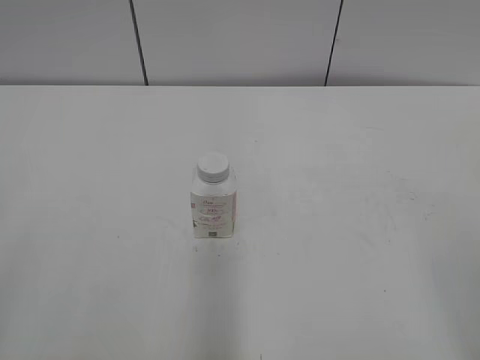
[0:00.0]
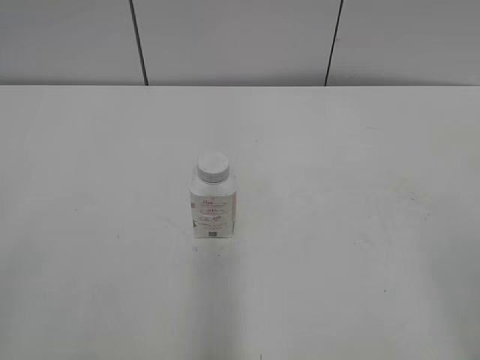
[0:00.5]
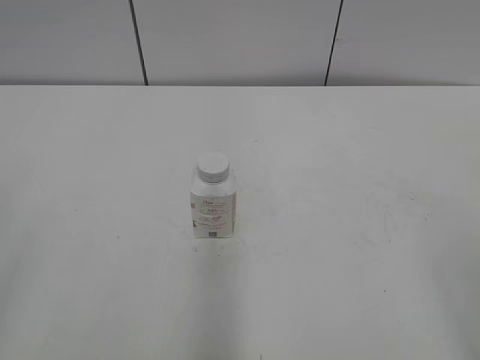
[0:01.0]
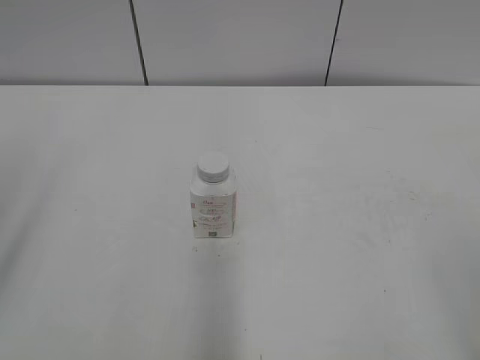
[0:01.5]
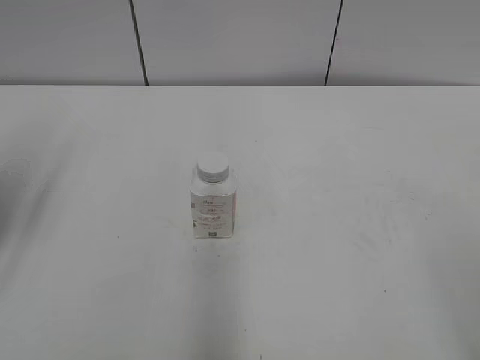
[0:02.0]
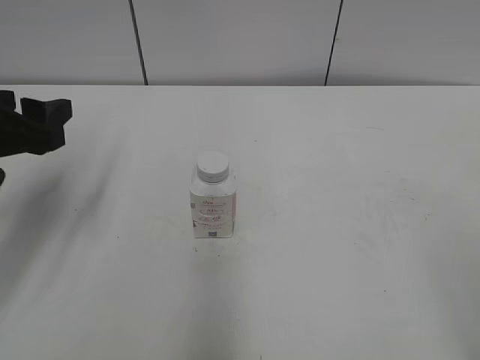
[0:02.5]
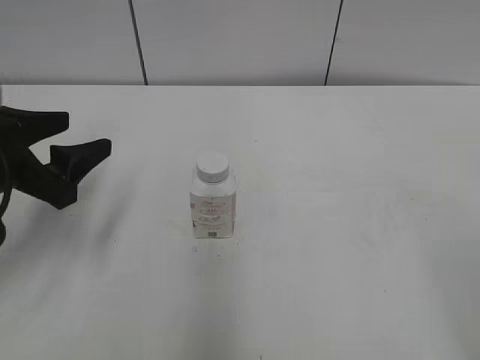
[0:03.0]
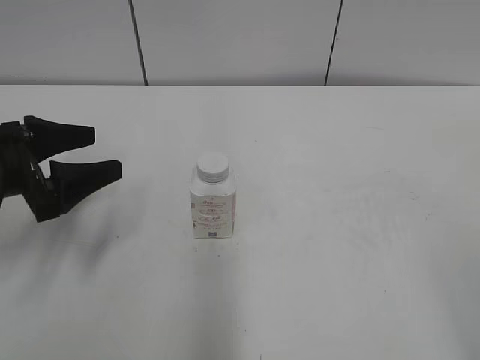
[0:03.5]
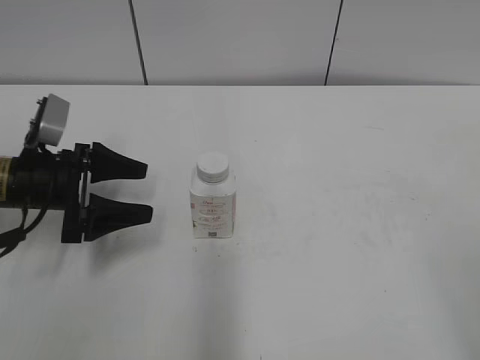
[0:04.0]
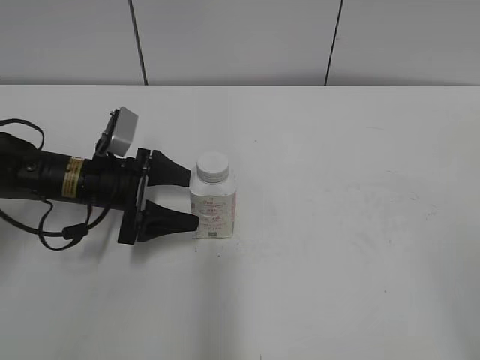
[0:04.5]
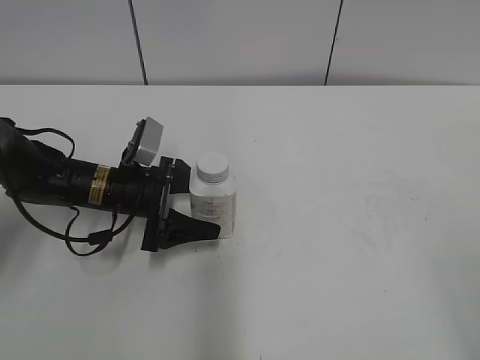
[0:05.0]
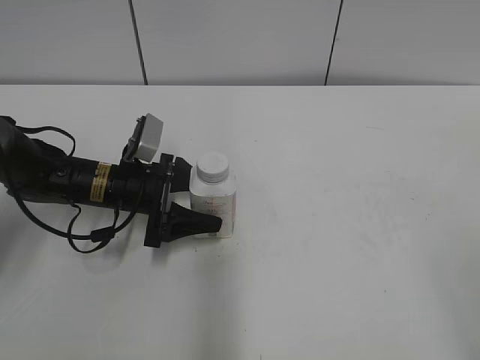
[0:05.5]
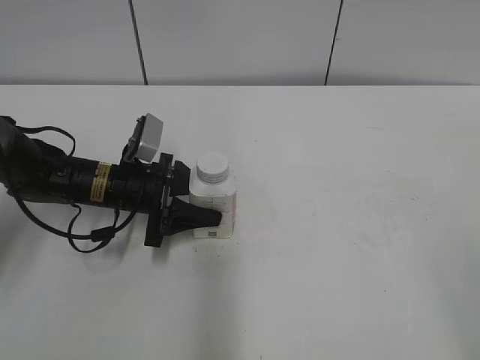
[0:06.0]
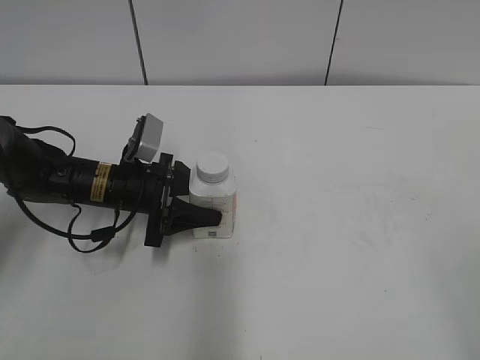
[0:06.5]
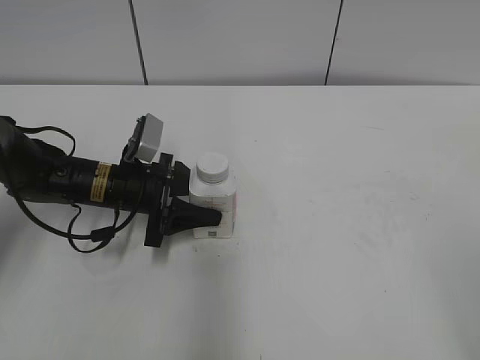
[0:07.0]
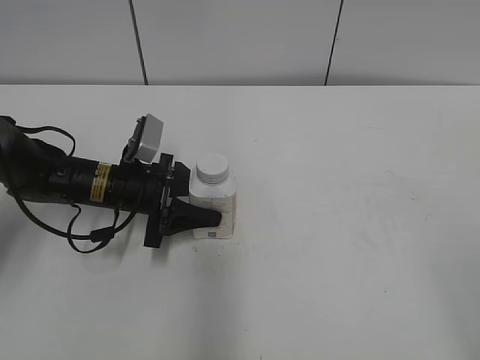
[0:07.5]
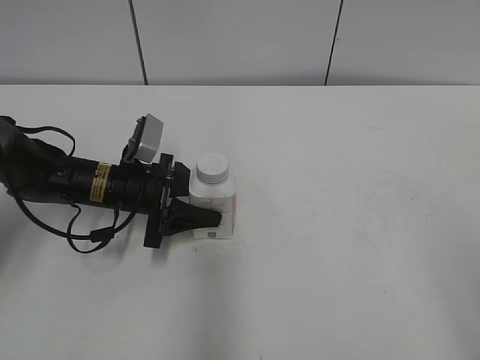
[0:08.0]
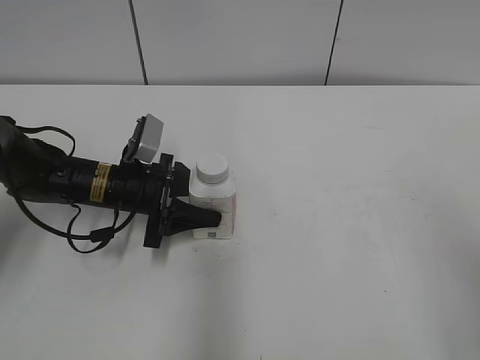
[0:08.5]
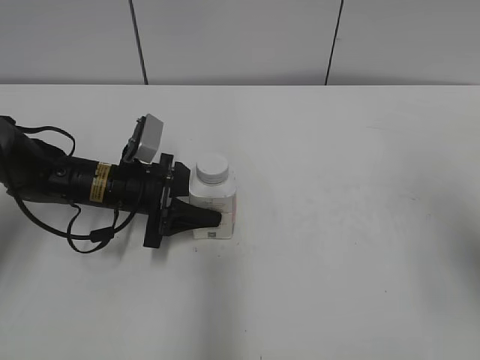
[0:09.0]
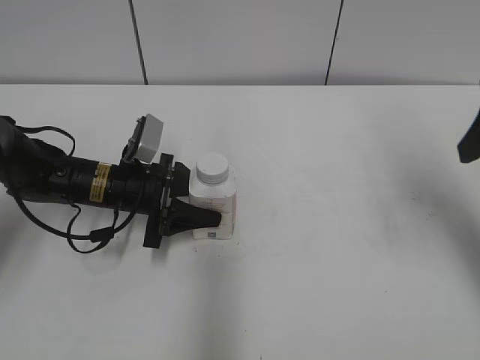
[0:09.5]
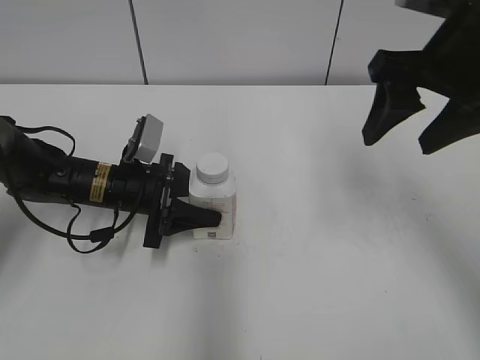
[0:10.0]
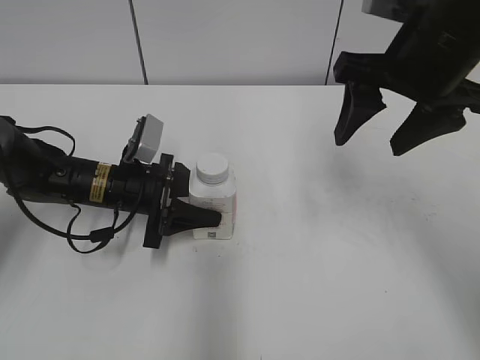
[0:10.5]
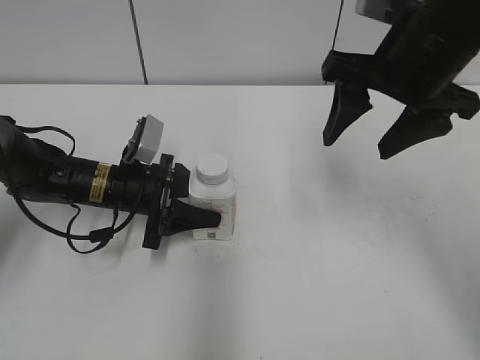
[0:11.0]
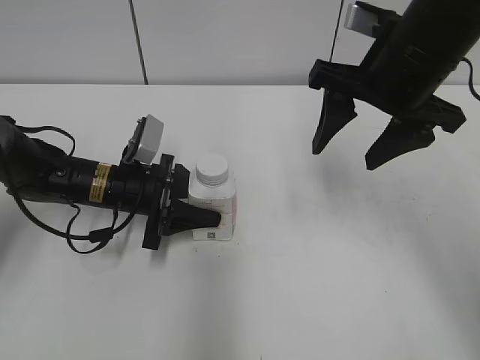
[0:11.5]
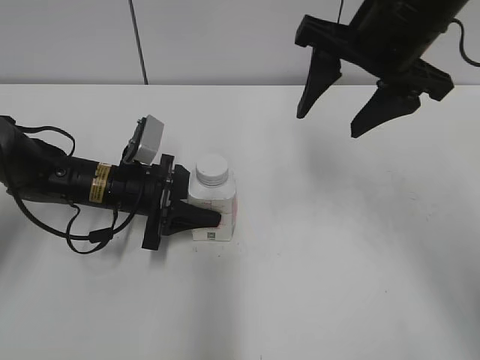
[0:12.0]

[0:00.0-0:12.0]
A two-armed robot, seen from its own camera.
Step, 0:00.0 to 0:06.0: Grasp the bottle and move it to the center of the table with the left gripper.
0:02.0 to 0:04.0: The left gripper moves downward and forward, about 20 cm, and opens up.
0:04.0 to 0:06.0: The left gripper travels to the right and downward by approximately 10 cm, and closes.
0:08.0 to 0:10.0: The right gripper moves forward, about 30 cm.
0:10.0 to 0:12.0: The right gripper goes roughly 5 cm to the left.

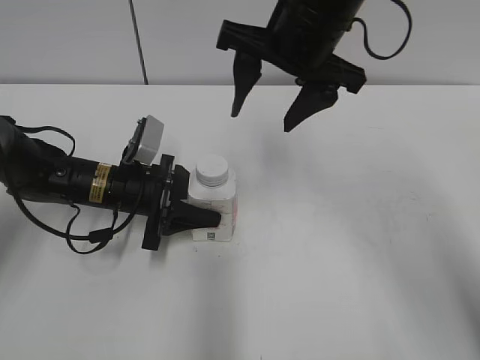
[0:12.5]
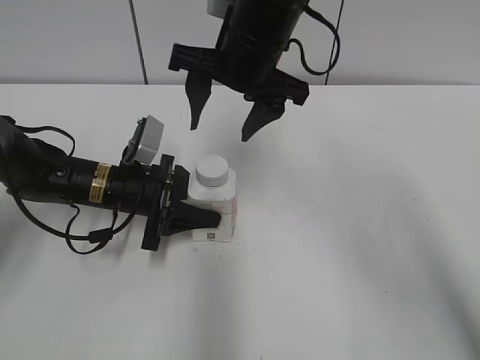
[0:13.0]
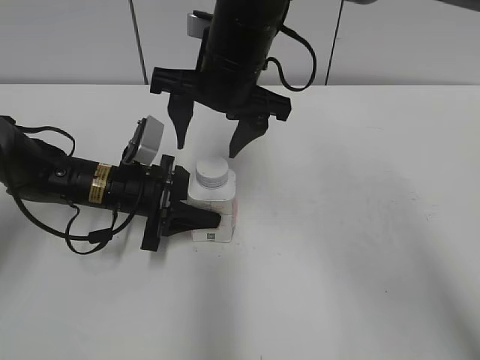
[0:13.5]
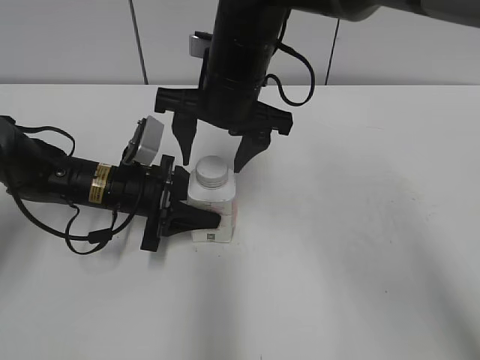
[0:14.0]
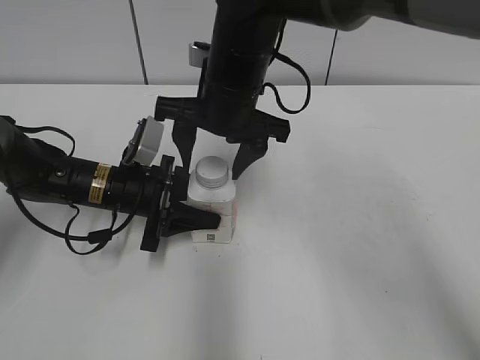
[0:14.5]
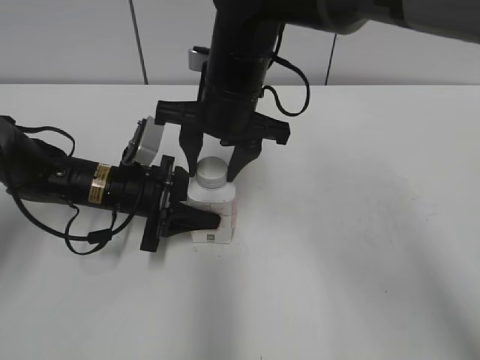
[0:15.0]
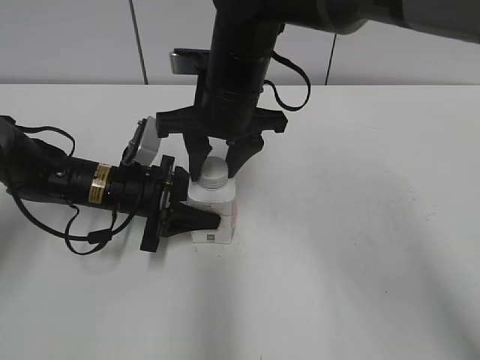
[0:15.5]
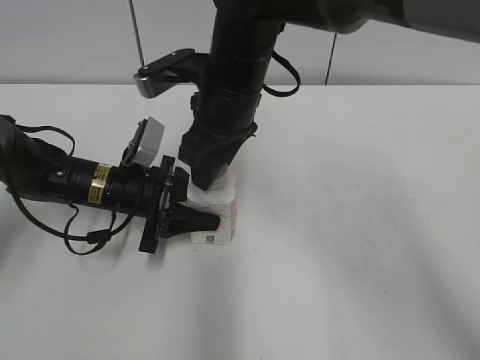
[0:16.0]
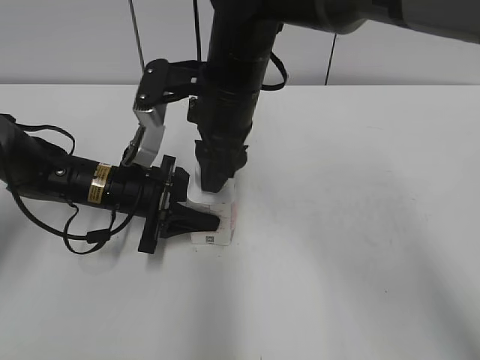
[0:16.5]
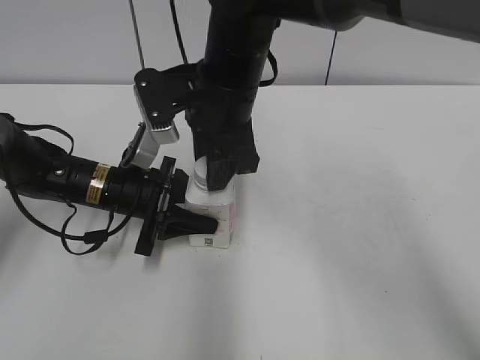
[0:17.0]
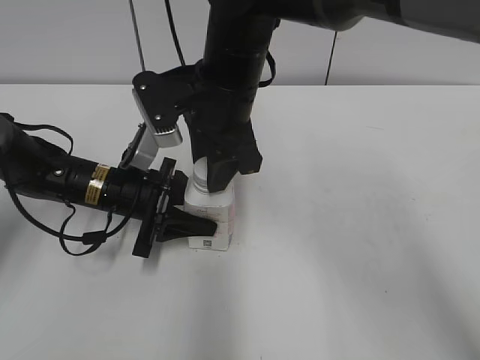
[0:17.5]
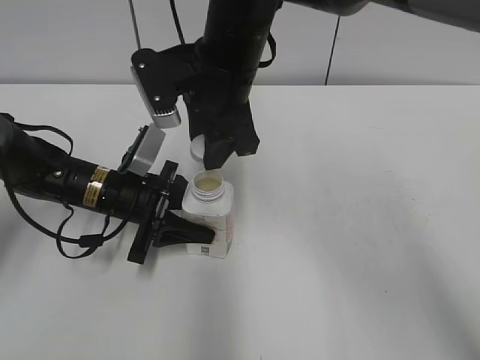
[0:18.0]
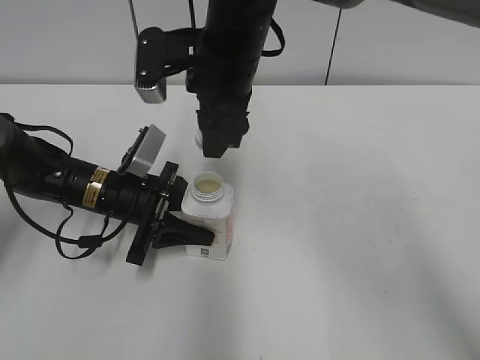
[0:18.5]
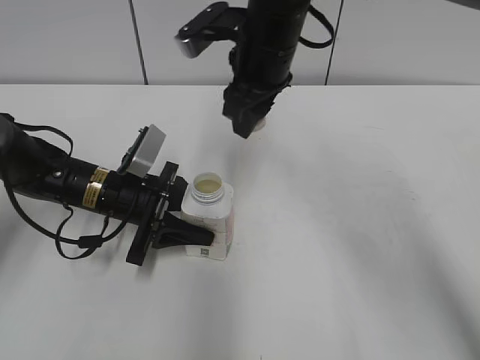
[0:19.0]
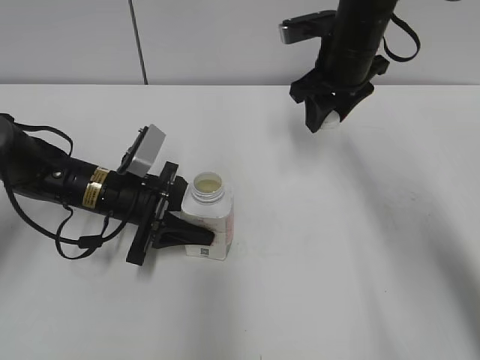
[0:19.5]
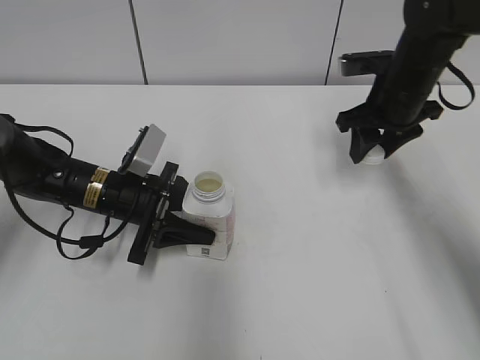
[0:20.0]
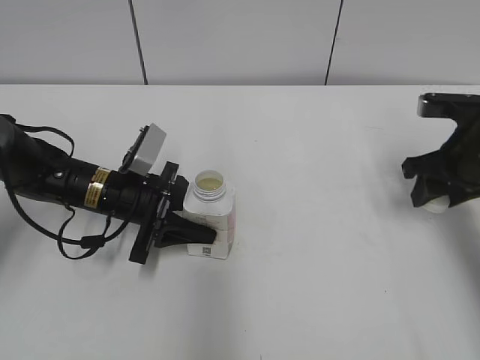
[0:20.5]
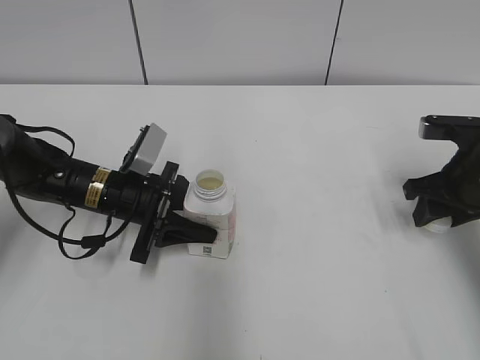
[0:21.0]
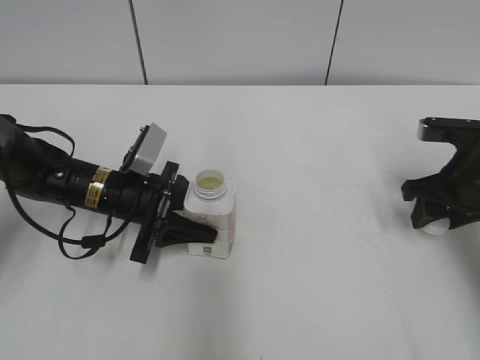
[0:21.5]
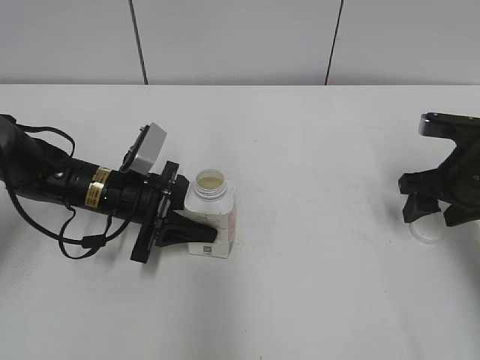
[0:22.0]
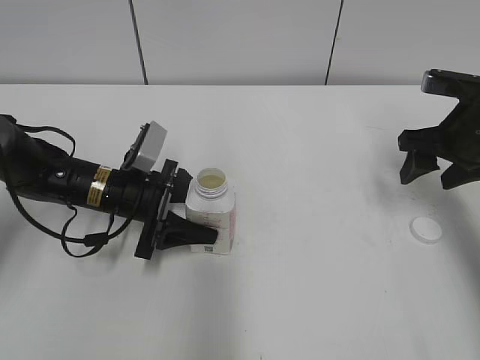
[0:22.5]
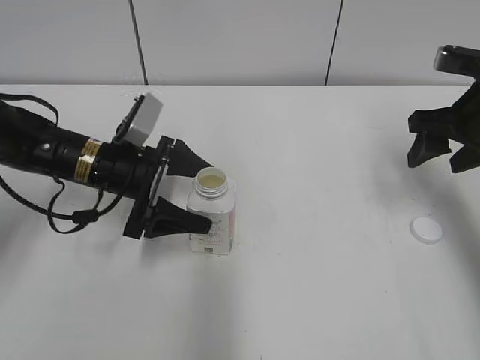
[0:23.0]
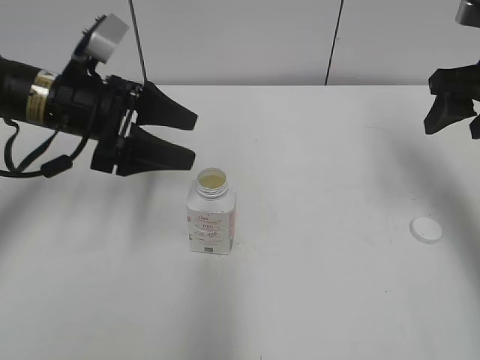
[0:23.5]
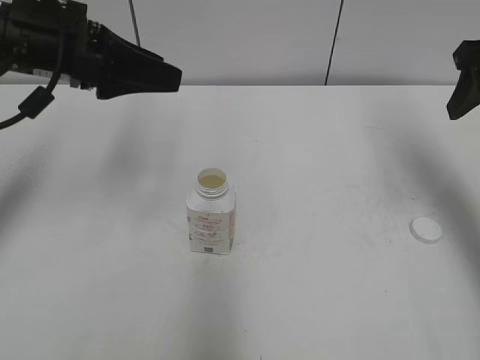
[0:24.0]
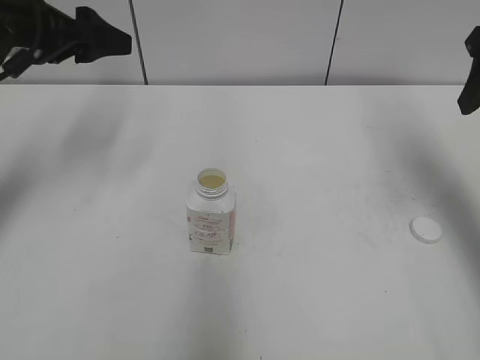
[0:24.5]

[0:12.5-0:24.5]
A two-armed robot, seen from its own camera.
Step, 0:12.5 to 0:18.0: Unscrew the bottle cap with the right gripper while holding the bottle with the left gripper.
Step, 0:18.5 to 0:21.5: Place the bottle cap on the table with the right gripper.
Step, 0:22.0 to 0:23.0: Place the bottle on the table with the left gripper.
0:12.5 to 0:14.5: The right gripper shifts roughly 10 cm to the left and downward.
0:14.5 to 0:16.5: The right gripper closes its fingers.
0:18.5 to 0:20.5: The right gripper is displaced to the right by approximately 30 cm.
0:20.5 to 0:22.5: The right gripper opens its fingers.
0:22.5 to 0:24.5: The two grippers go approximately 20 cm upward. The left gripper opens up.

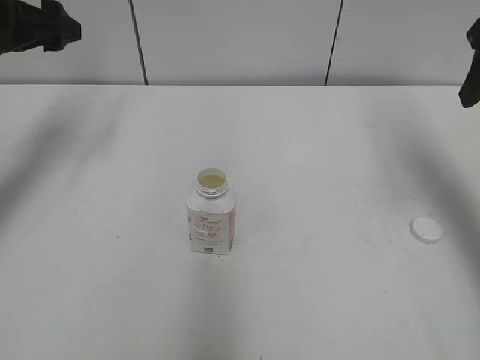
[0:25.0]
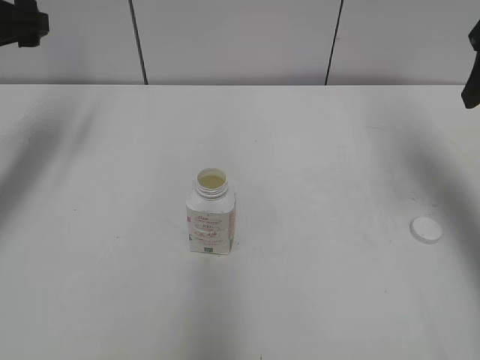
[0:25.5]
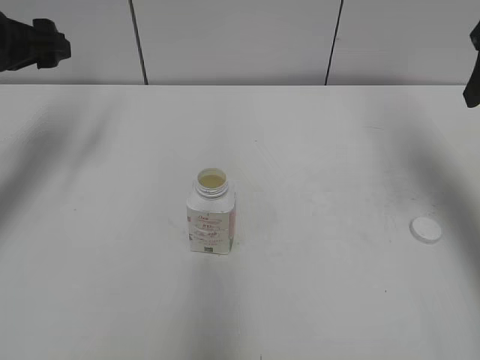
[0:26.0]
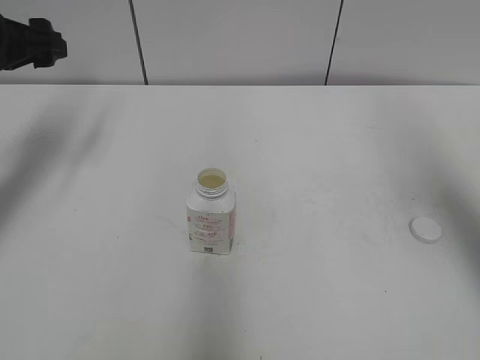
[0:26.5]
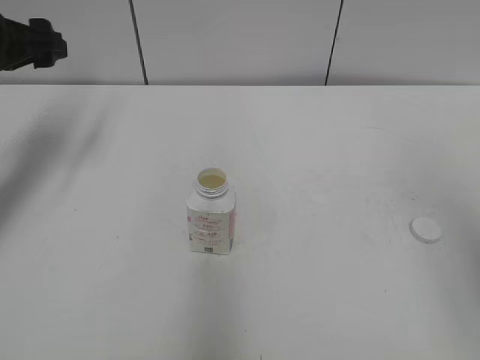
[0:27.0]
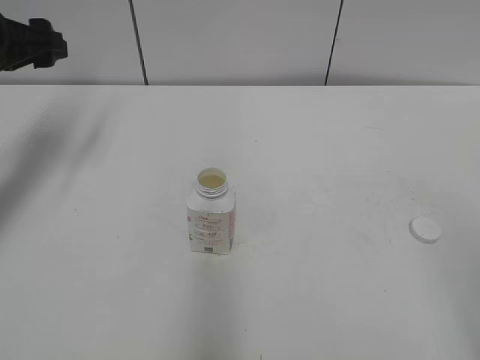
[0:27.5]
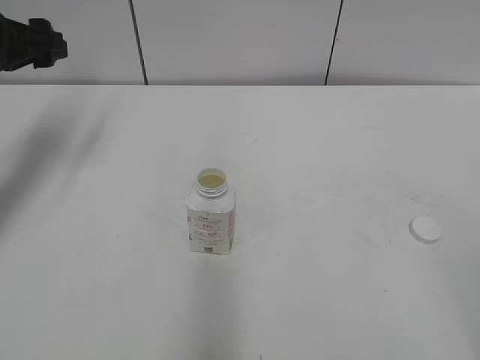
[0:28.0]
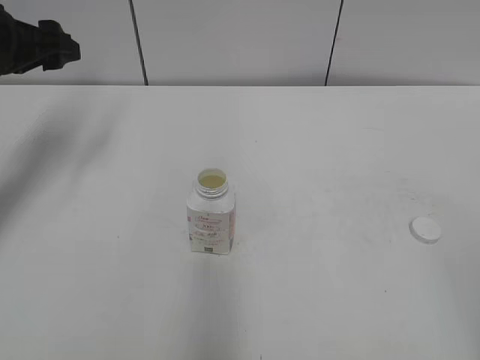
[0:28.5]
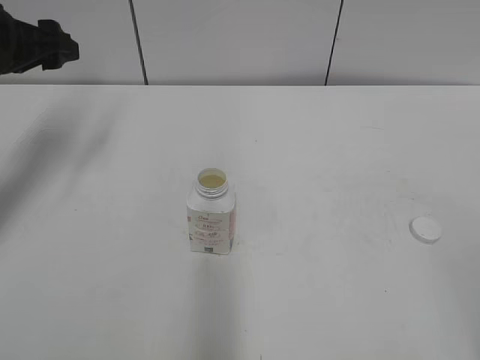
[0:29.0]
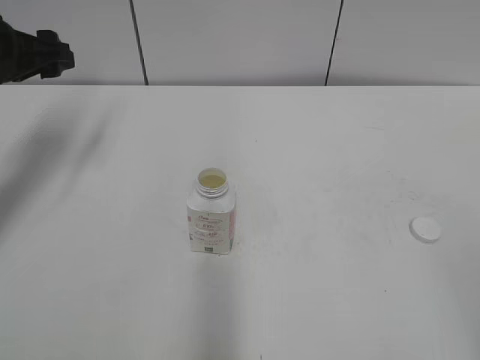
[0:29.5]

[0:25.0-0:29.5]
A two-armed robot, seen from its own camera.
0:25.0 to 0:27.0: The right gripper heads backward, covering approximately 20 cm.
